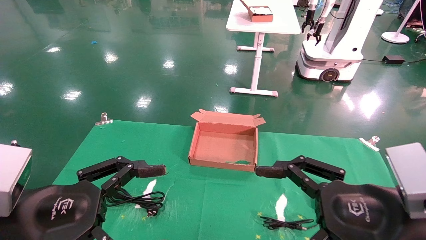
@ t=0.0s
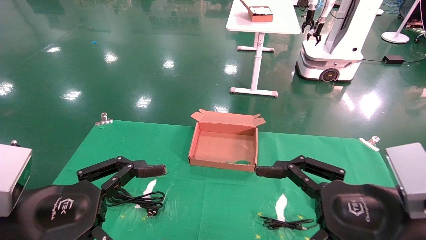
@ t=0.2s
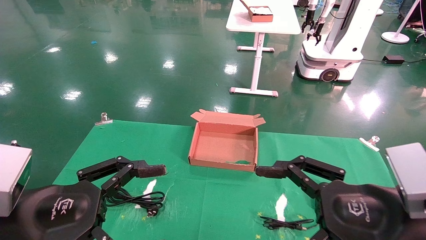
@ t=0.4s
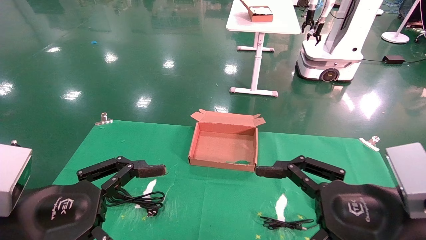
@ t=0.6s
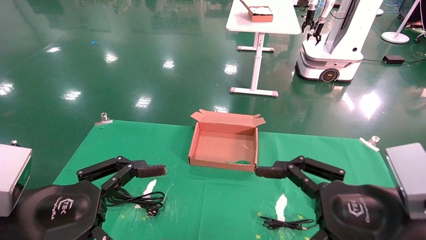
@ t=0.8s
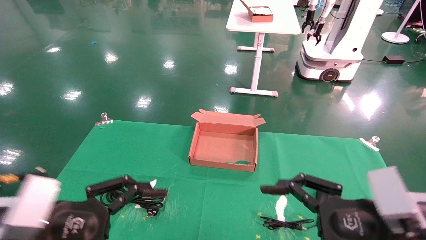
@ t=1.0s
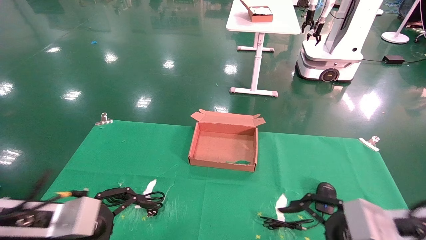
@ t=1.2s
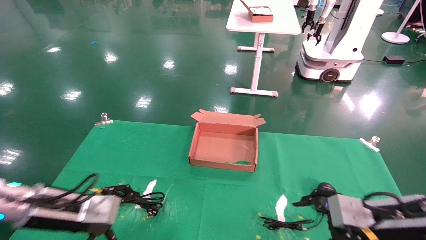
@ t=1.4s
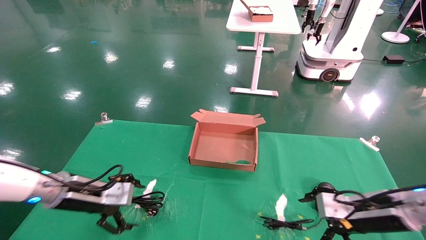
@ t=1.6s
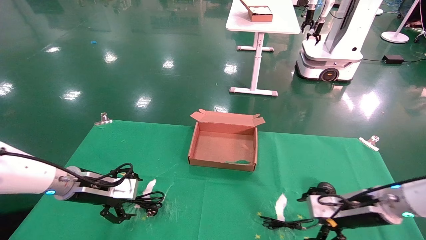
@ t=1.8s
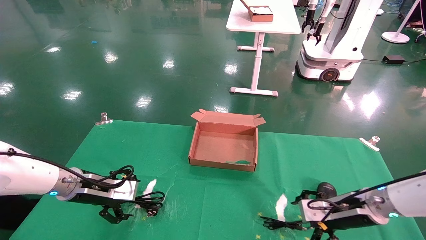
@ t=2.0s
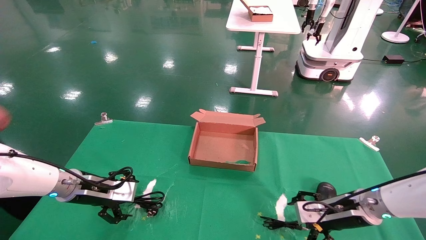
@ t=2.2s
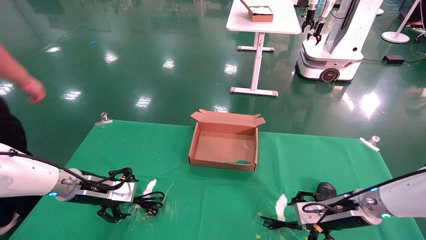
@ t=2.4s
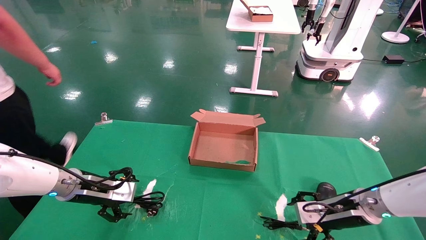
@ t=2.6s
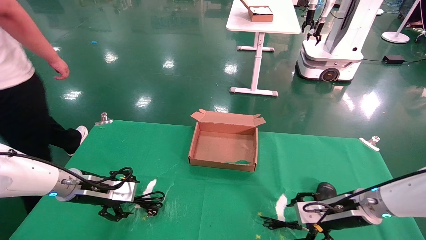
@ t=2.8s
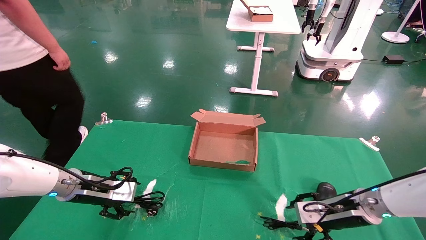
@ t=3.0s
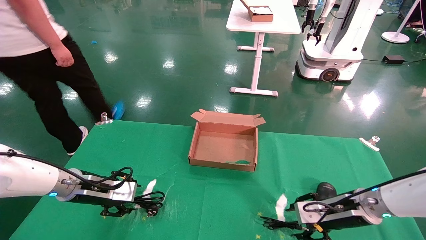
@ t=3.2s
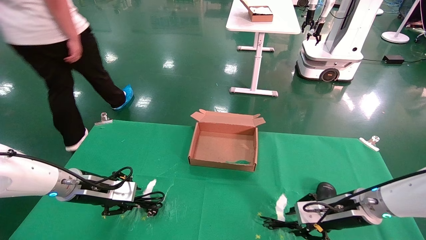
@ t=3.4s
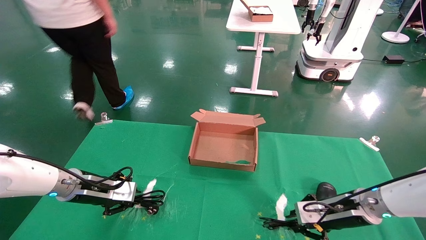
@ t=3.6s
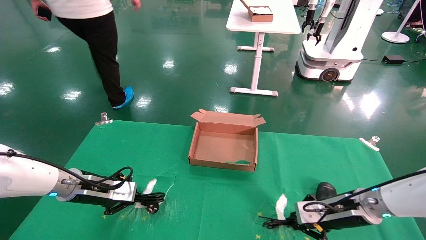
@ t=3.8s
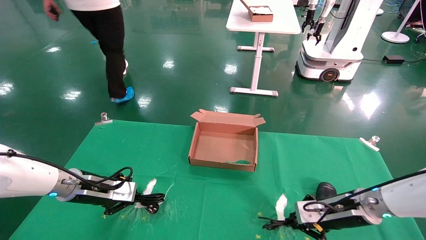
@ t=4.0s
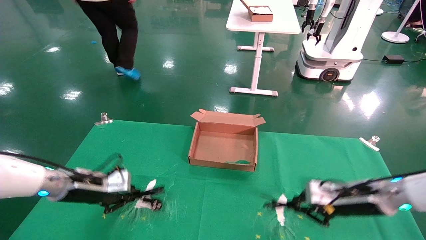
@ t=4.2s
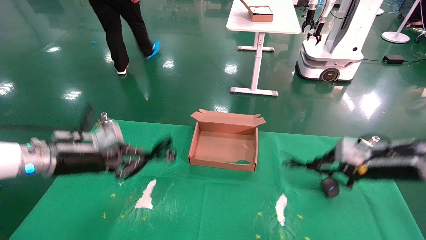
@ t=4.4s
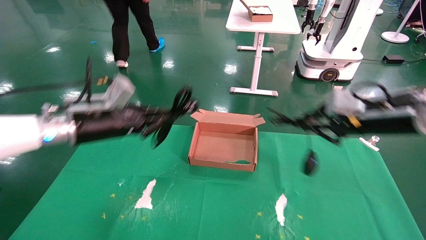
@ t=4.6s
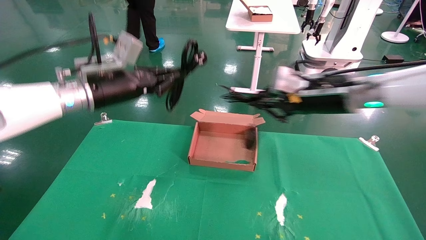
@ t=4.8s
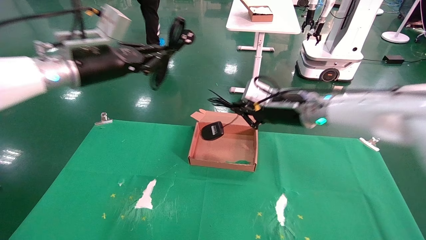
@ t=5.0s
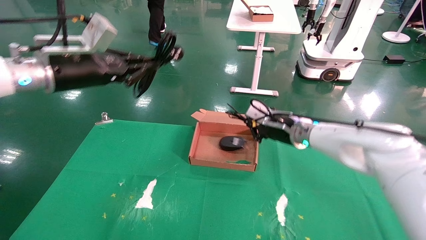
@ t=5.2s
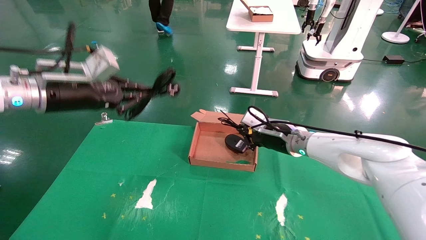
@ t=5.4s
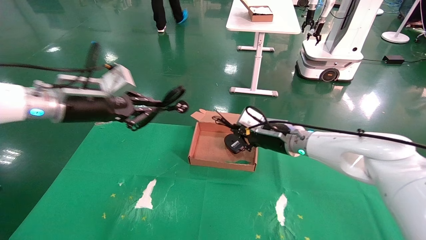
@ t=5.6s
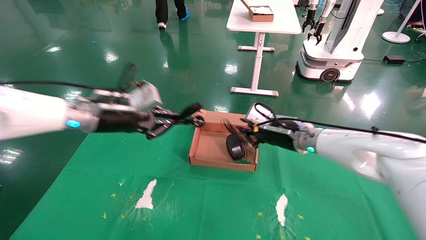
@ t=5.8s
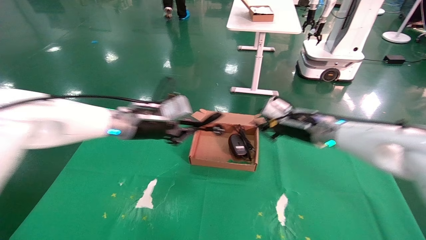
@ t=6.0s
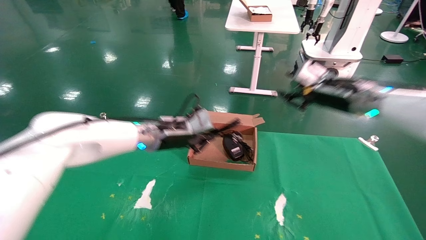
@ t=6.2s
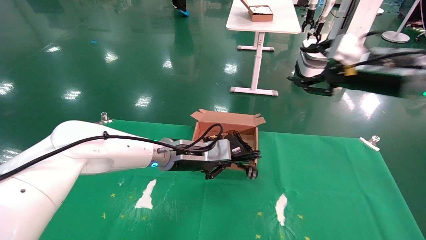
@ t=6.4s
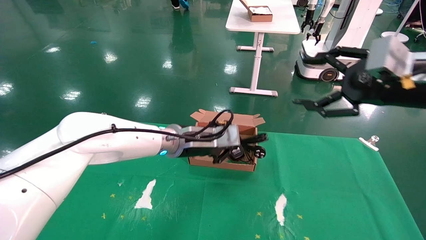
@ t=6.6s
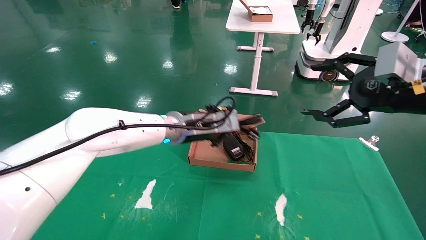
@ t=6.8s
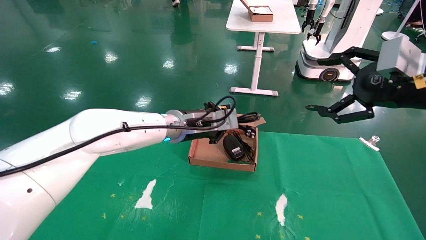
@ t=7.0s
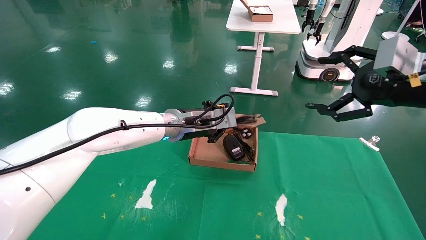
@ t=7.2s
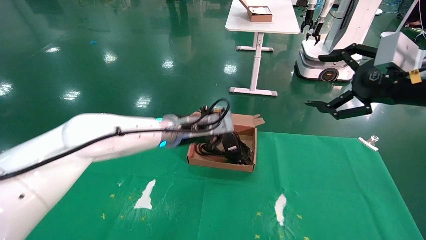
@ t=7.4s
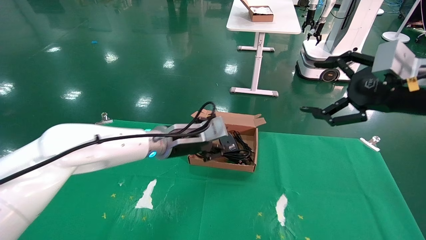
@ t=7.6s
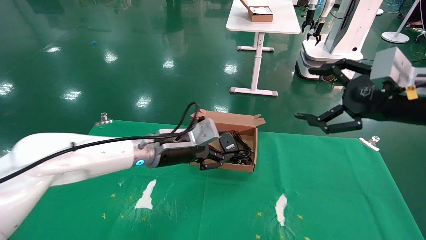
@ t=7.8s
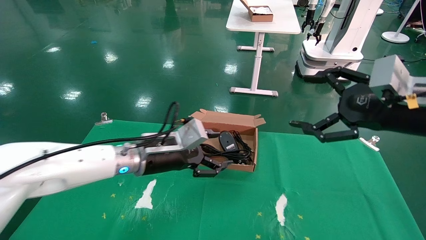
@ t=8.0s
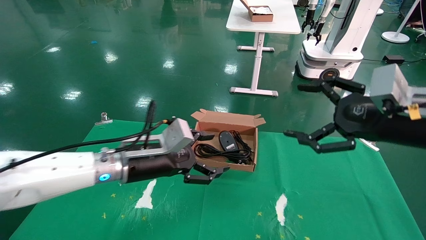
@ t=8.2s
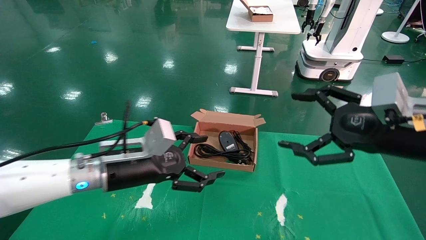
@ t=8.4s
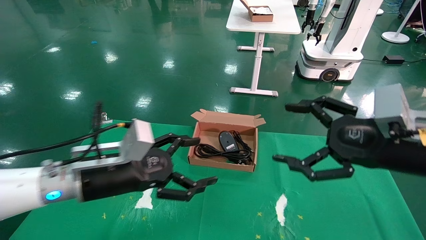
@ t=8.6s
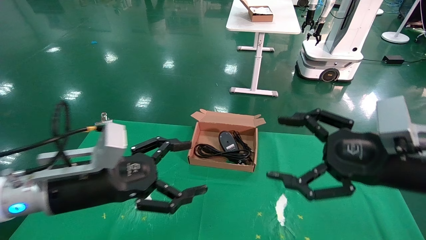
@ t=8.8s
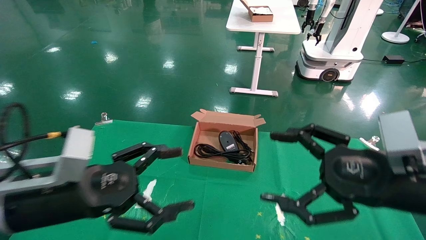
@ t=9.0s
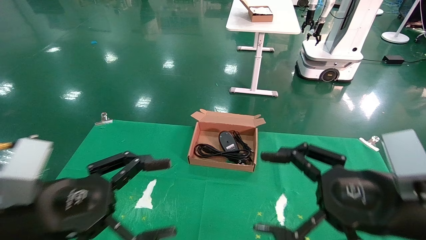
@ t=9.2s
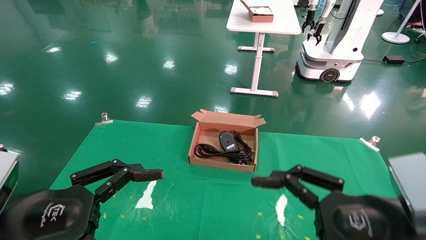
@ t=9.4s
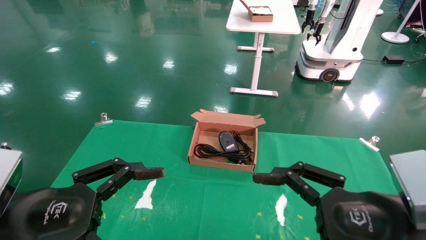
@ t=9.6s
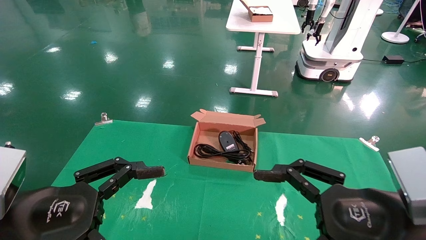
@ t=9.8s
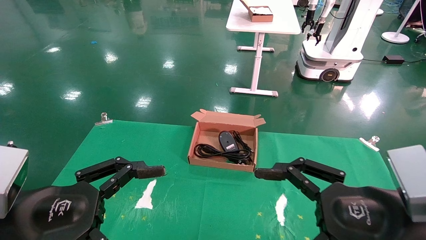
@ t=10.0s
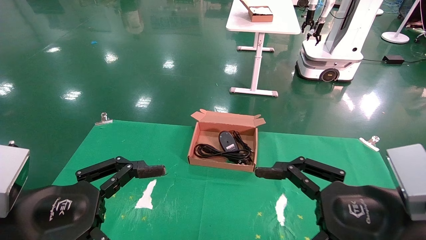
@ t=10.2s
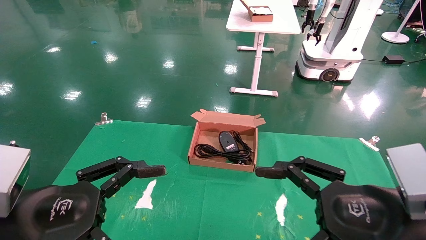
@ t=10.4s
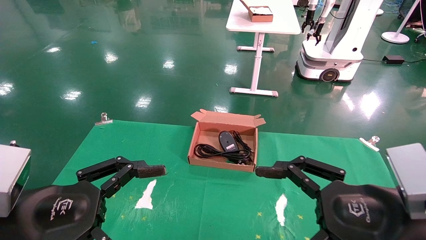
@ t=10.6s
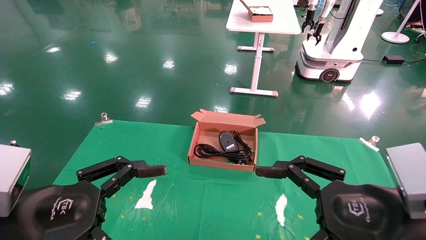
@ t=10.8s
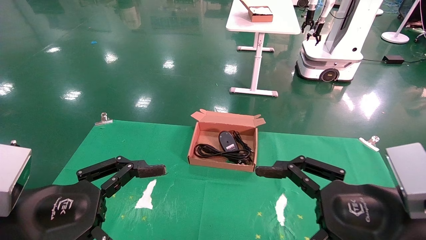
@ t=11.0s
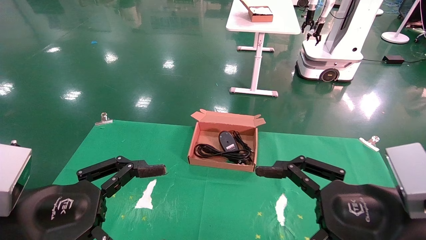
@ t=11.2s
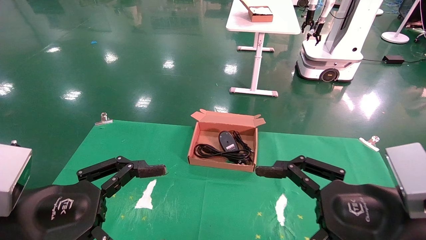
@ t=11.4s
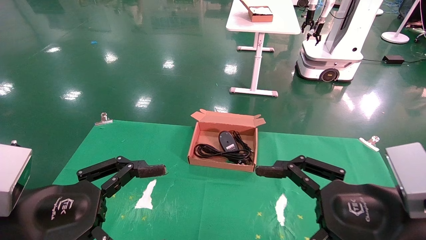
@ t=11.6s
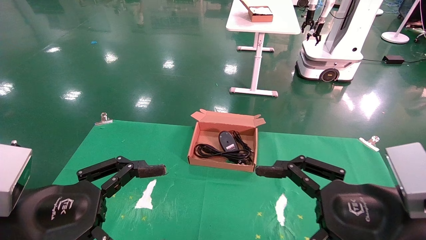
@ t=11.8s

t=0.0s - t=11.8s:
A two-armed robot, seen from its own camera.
Step, t=1.2s - t=4.0s: Grab and lift both the mouse and power cord from the accessory packaging area at the same time.
Step, t=4.2s - t=7.4s: Place the mouse and power cord into the box.
t=0.0s - t=1.4s: The right gripper goes approximately 15 cm forward, downward and to the right. Meanwhile the left gripper is displaced forward by about 15 cm.
t=1.4s - t=3.0s: The left gripper shifts some 10 cm forward; the right gripper goes some 10 cm forward and downward.
t=3.0s - t=4.4s: The right gripper is displaced upward by approximately 15 cm, and closes its fingers. The left gripper is displaced upward by approximately 10 cm, and closes.
t=4.4s - t=6.0s: The left gripper shifts about 10 cm to the right, and travels upward and back again, some 15 cm each way. Meanwhile the right gripper heads to the left and forward, covering about 15 cm.
t=6.0s - t=7.4s: The left gripper shifts about 10 cm to the right. Meanwhile the right gripper heads backward, to the right and upward, covering some 20 cm, and opens up.
t=7.4s - t=8.8s: The right gripper heads downward, backward and to the left, covering some 15 cm. The left gripper goes approximately 20 cm backward and to the left, and opens up.
t=8.8s - t=10.4s: The right gripper shifts some 5 cm backward, while the left gripper goes about 10 cm backward.
t=10.4s - t=11.8s: The two grippers keep their place.

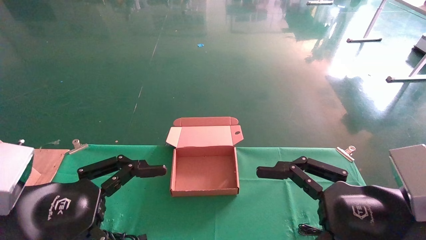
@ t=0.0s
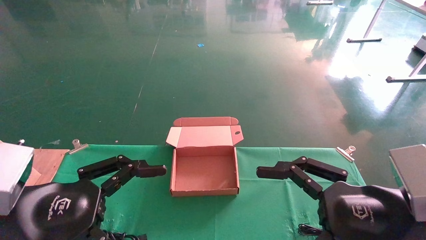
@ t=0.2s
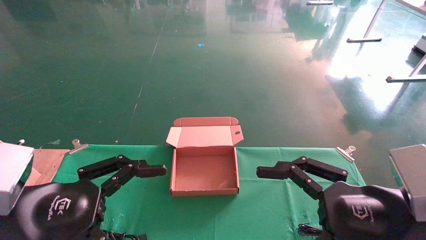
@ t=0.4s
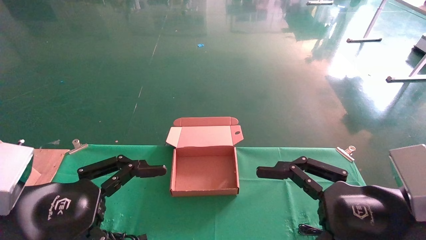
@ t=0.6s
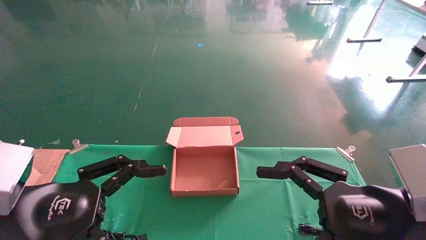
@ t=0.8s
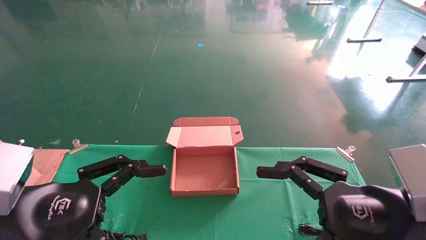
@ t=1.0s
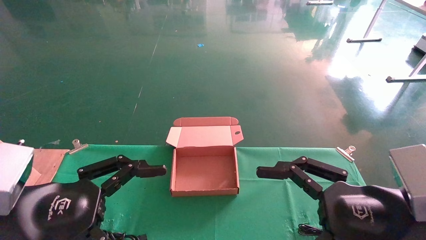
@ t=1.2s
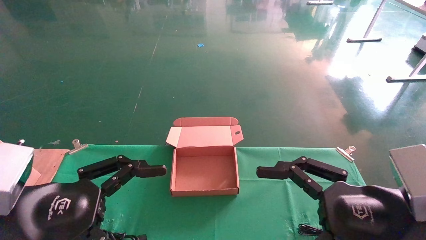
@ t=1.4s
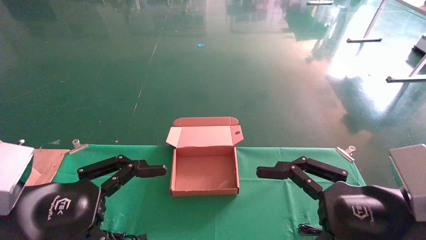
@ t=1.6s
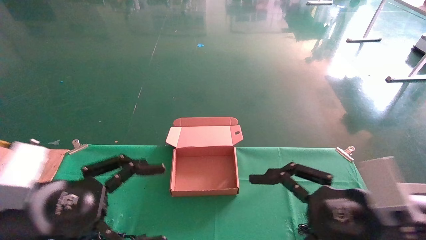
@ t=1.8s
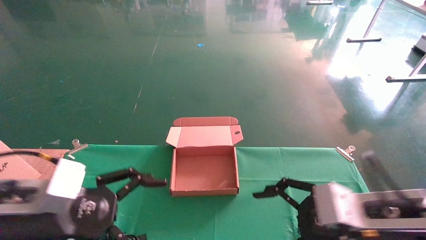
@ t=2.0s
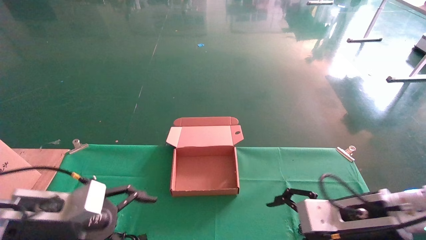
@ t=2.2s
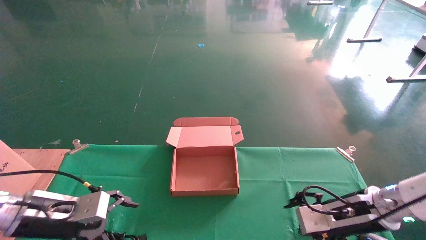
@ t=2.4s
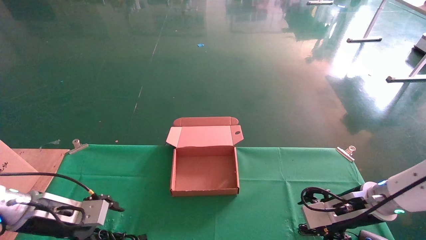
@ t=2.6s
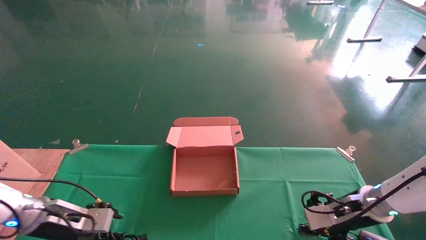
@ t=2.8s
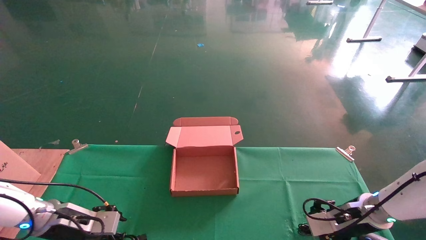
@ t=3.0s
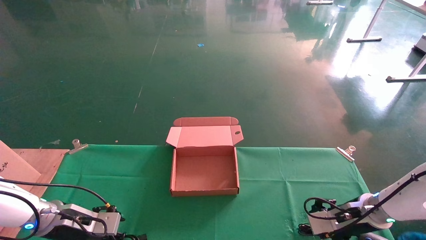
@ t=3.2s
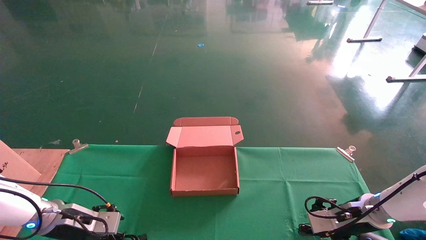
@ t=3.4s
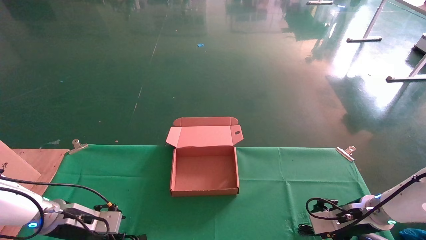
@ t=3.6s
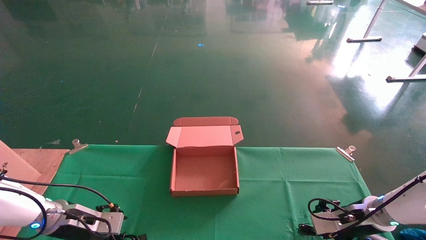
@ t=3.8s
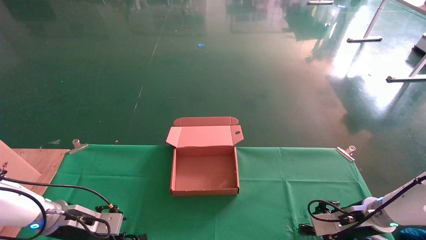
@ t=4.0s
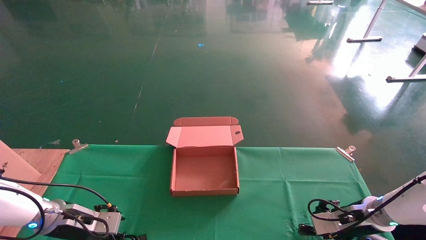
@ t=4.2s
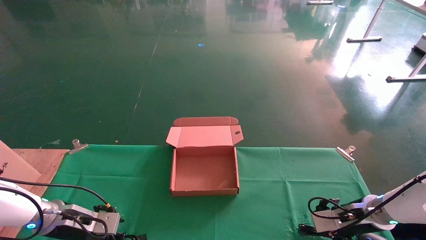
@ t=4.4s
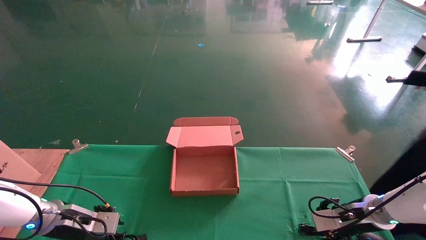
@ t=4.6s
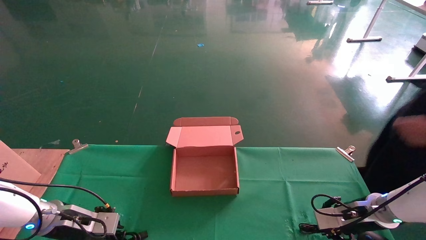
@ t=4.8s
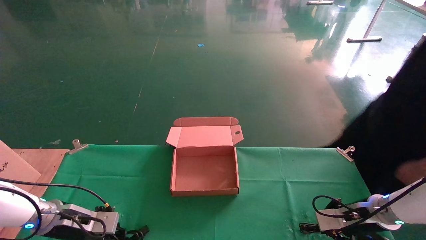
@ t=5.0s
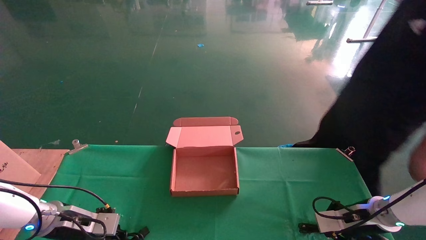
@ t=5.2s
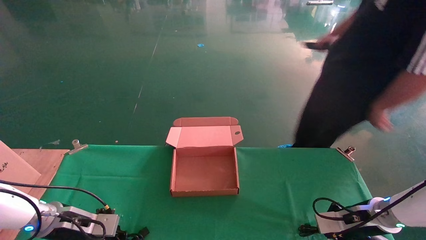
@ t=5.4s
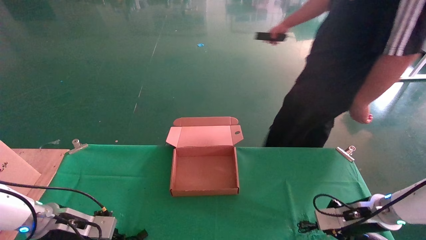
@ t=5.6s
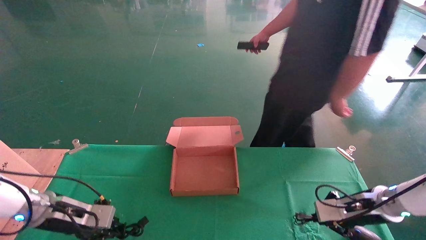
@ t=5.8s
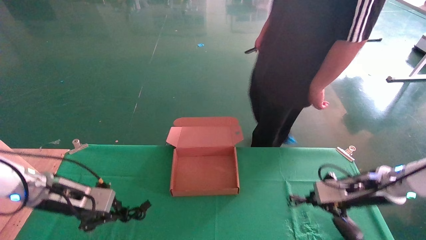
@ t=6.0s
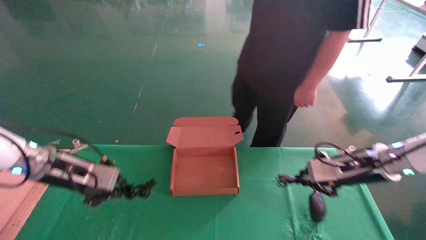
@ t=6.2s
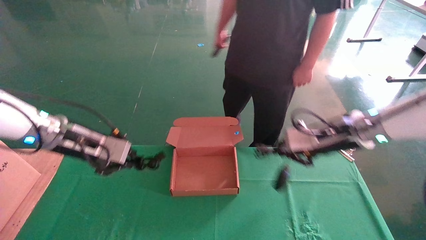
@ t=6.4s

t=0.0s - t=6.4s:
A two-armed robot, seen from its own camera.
t=0.0s - t=1.6s: The two grippers keep their place.
t=1.6s - t=3.2s: The two grippers go about 25 cm forward and downward.
t=3.2s - t=4.8s: The left gripper closes its fingers. The right gripper closes up.
t=4.8s - t=6.4s: The right gripper is displaced upward and to the left by roughly 20 cm, and closes. Meanwhile the left gripper goes about 20 cm upward, and closes its fingers.
